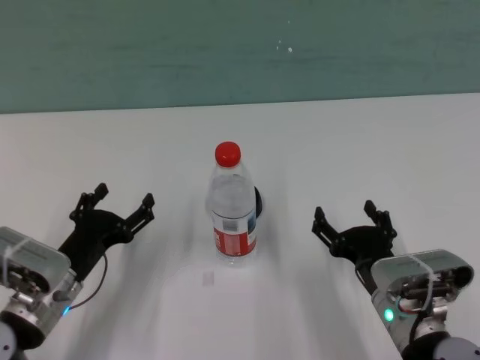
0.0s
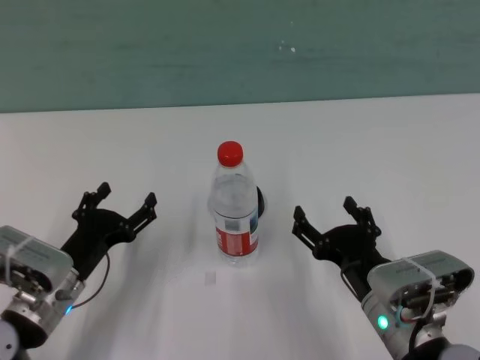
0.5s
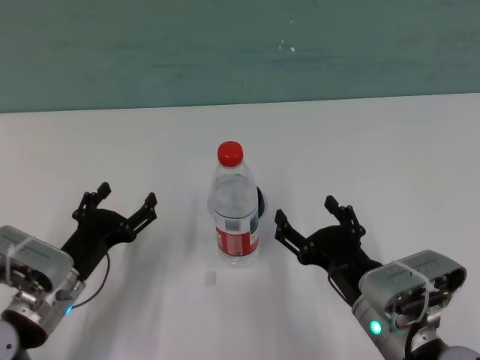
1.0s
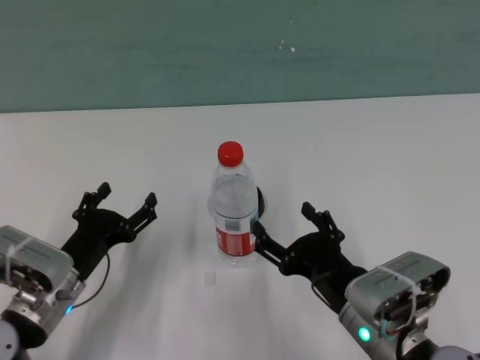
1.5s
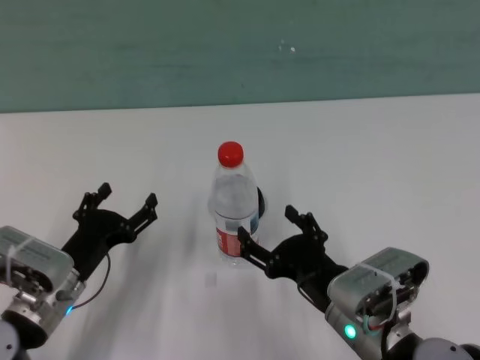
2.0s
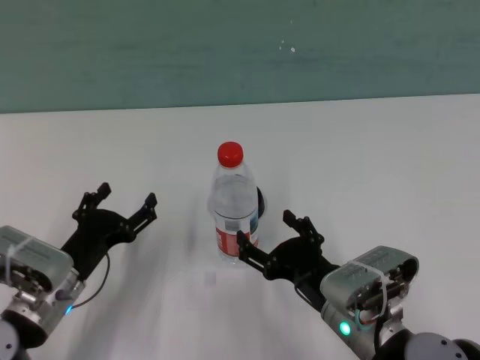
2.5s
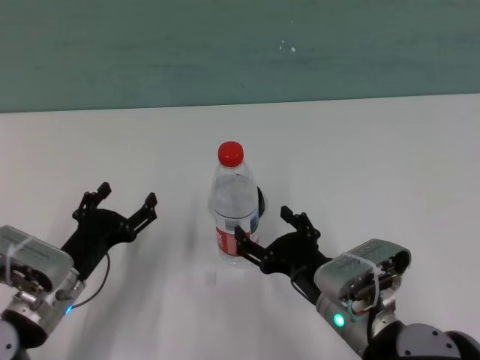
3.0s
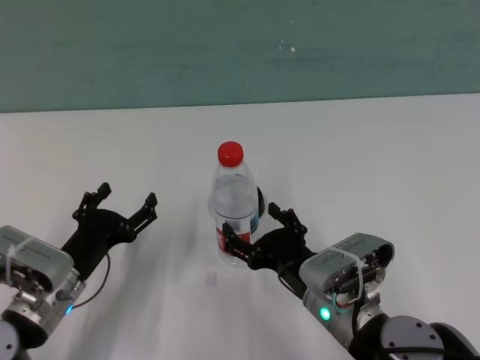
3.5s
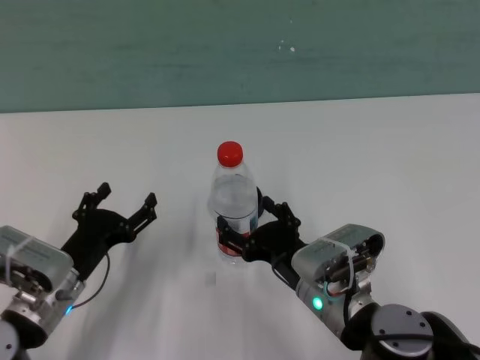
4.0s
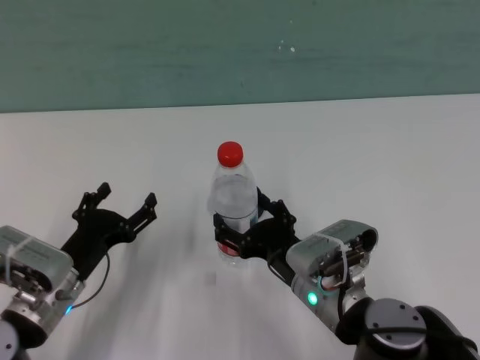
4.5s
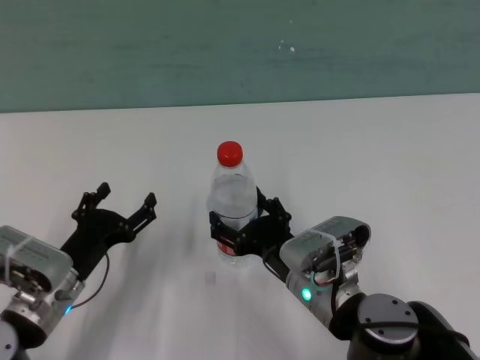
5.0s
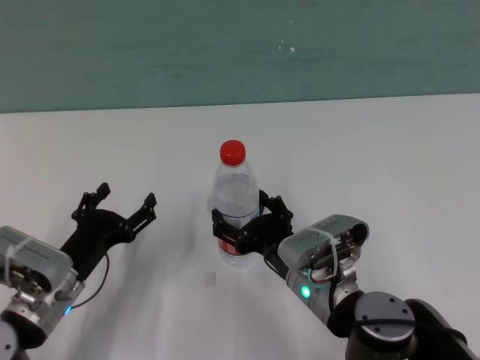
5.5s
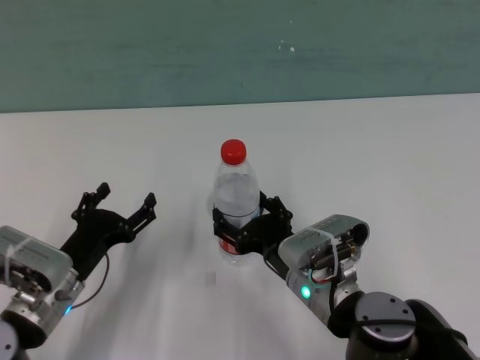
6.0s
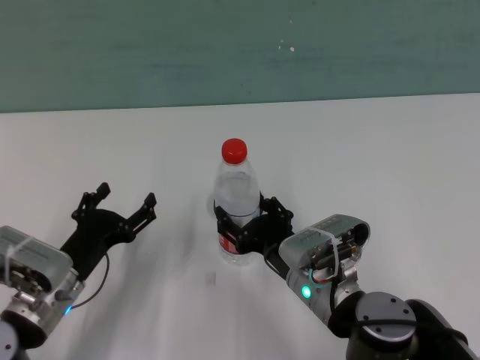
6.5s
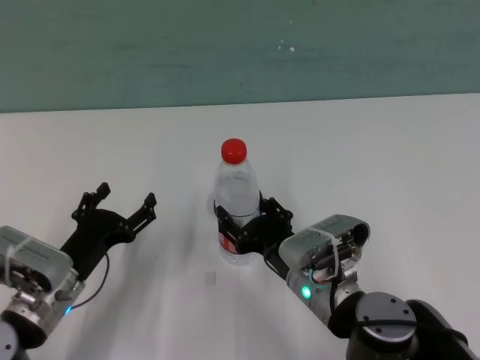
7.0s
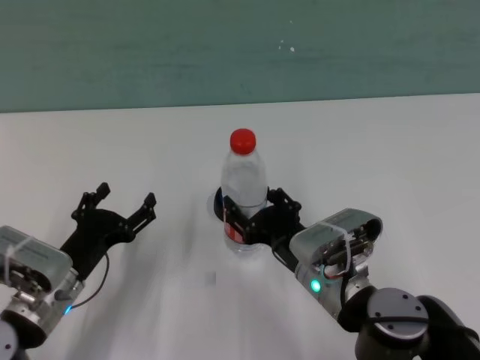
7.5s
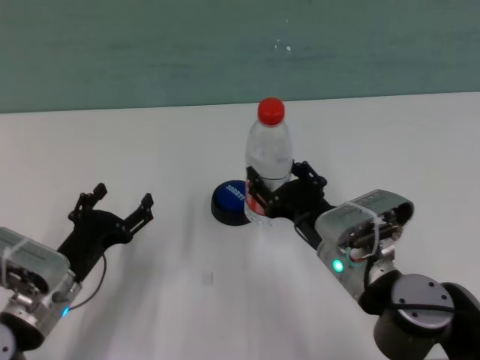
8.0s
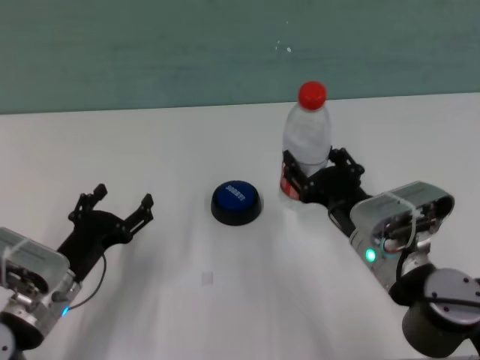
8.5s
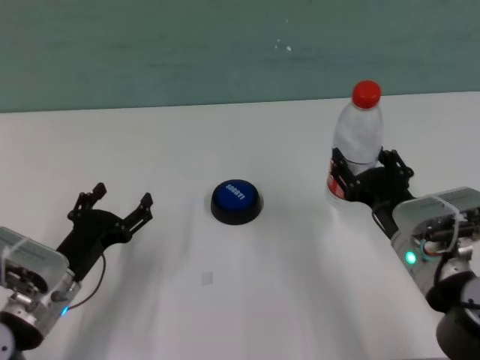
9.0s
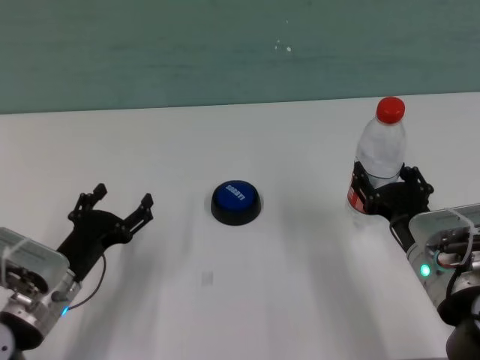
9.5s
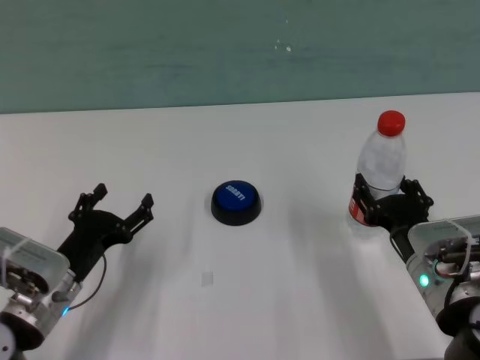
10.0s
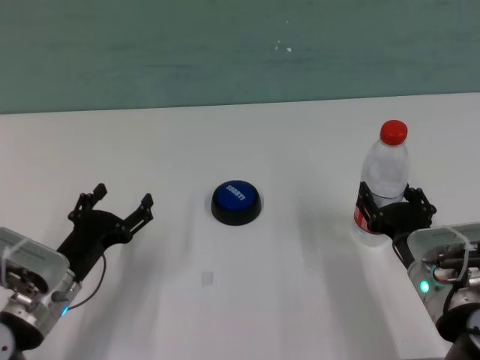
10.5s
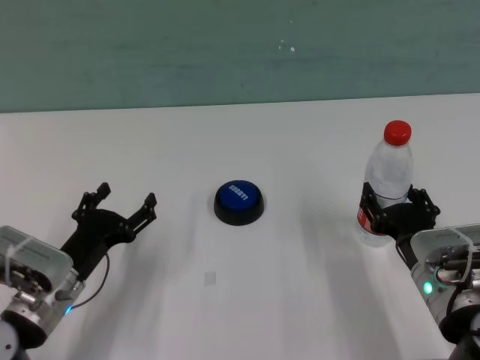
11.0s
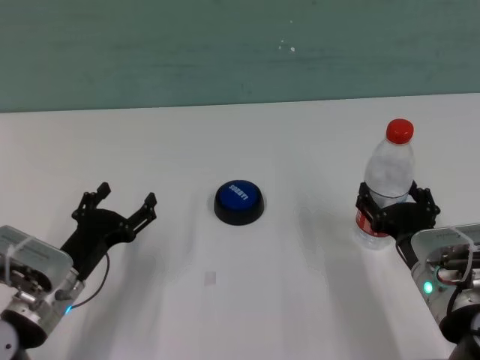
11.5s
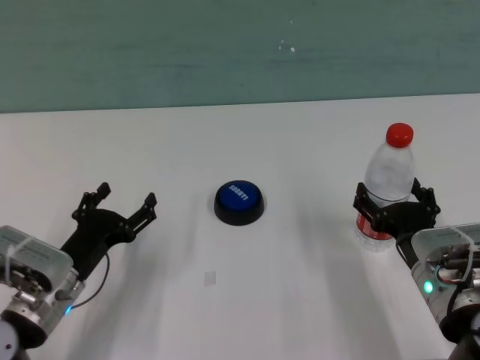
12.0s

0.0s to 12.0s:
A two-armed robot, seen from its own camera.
Task of the whole recording: after removing the water bottle from the table, press the button.
Step, 0.0s to 11.5s: Move the bottle away with right gripper.

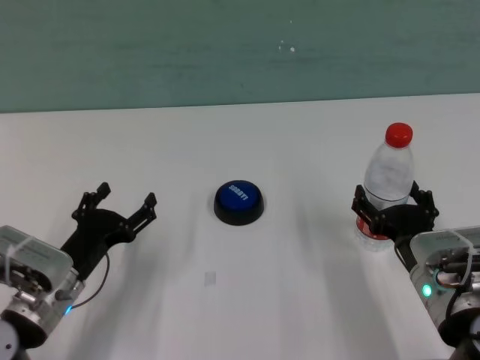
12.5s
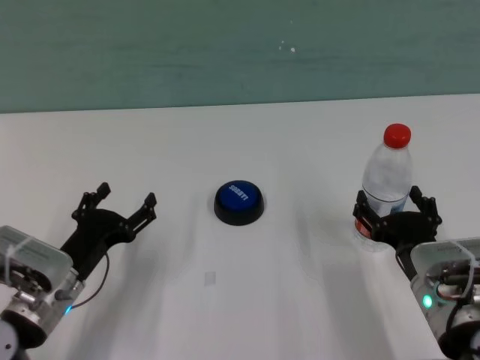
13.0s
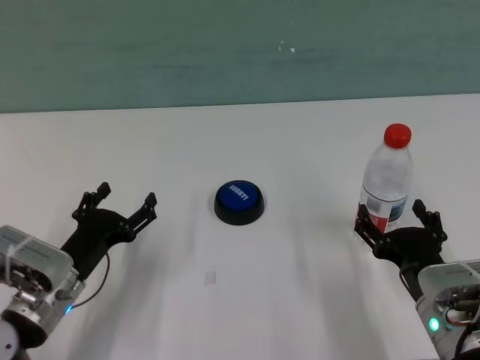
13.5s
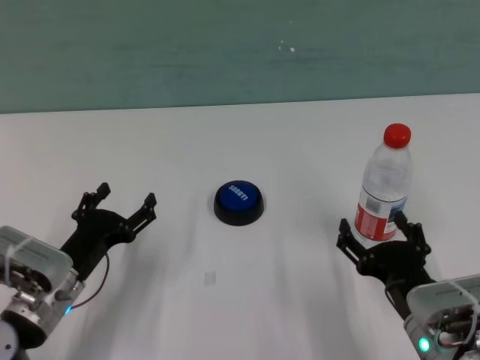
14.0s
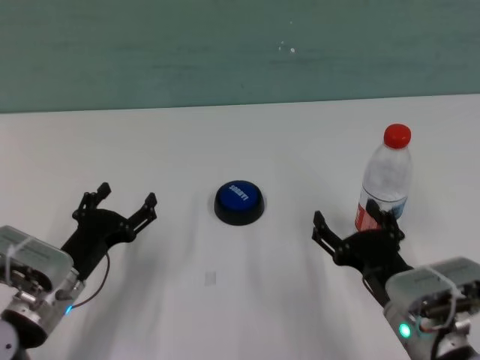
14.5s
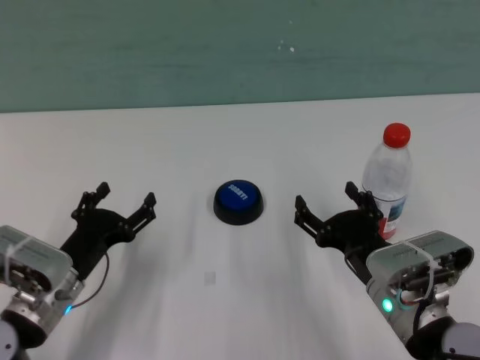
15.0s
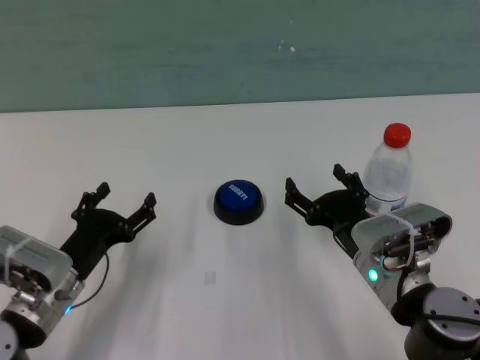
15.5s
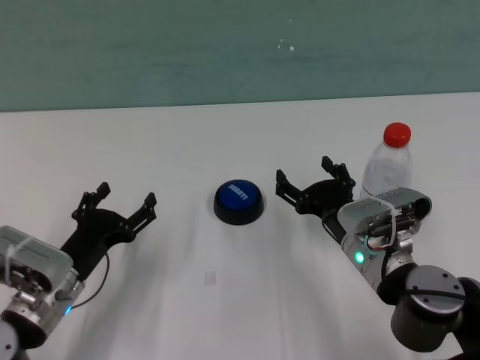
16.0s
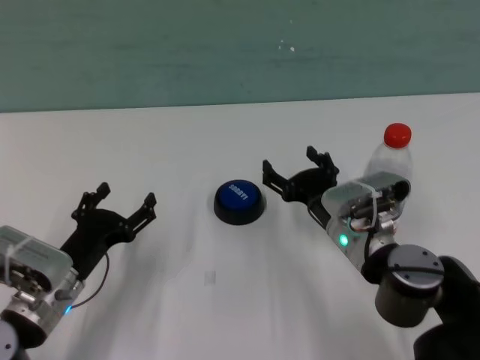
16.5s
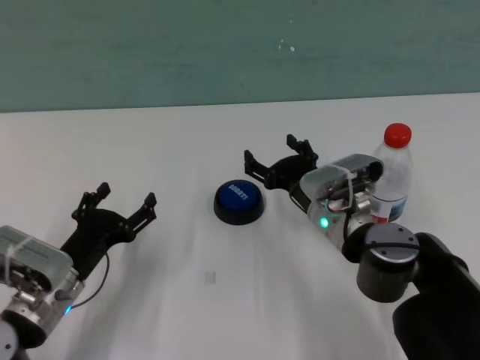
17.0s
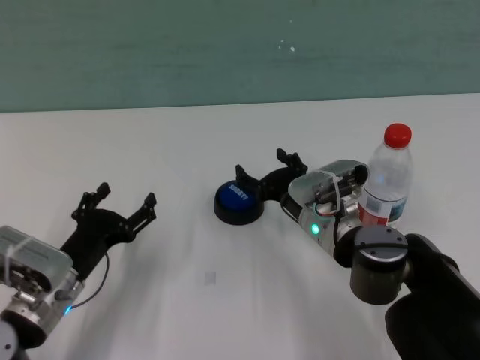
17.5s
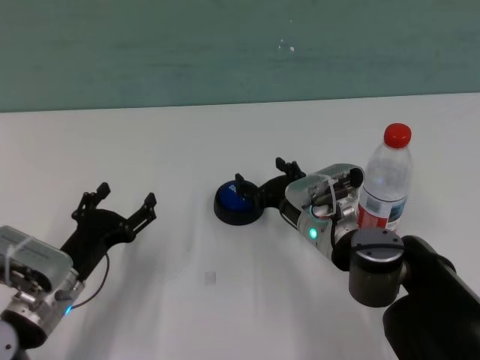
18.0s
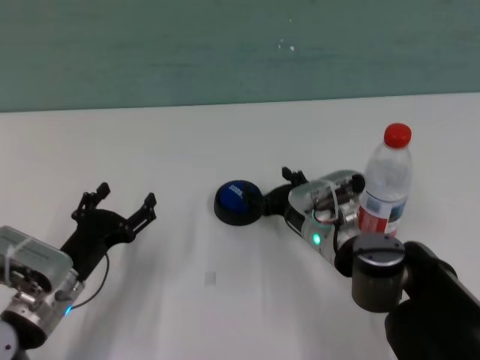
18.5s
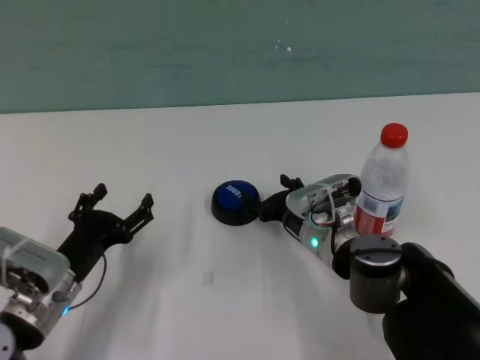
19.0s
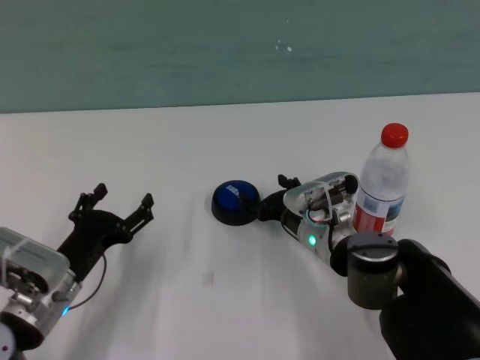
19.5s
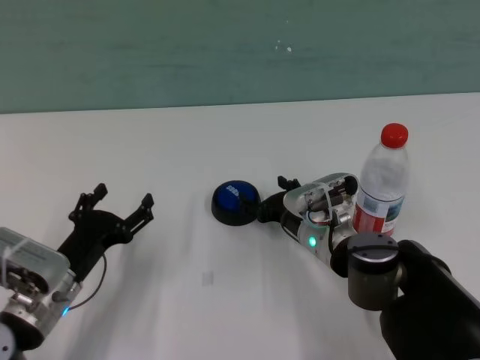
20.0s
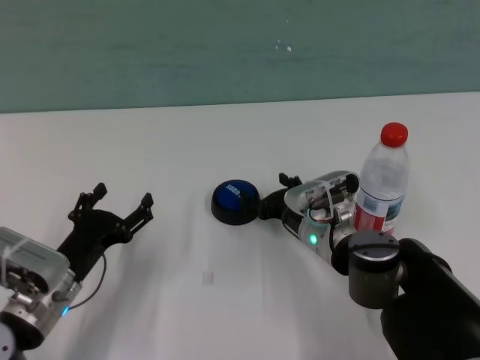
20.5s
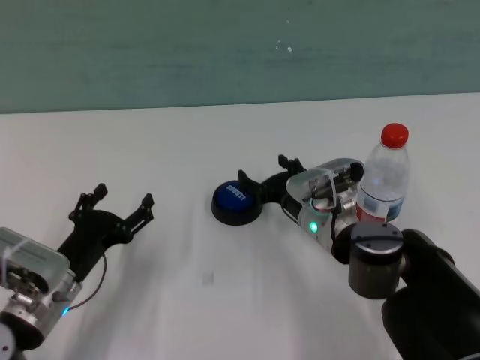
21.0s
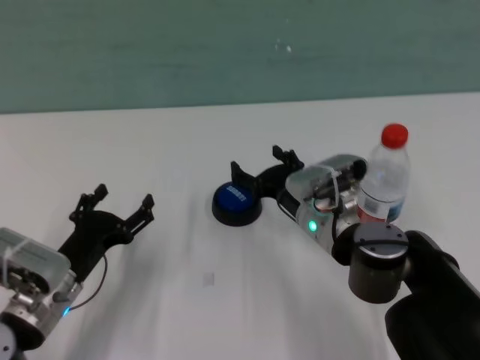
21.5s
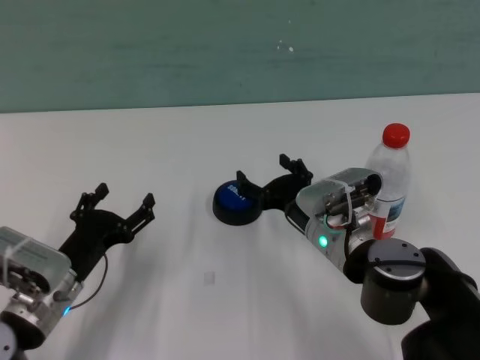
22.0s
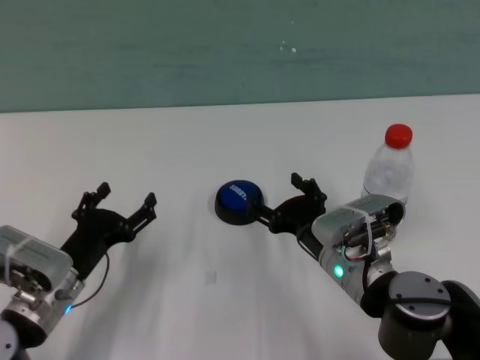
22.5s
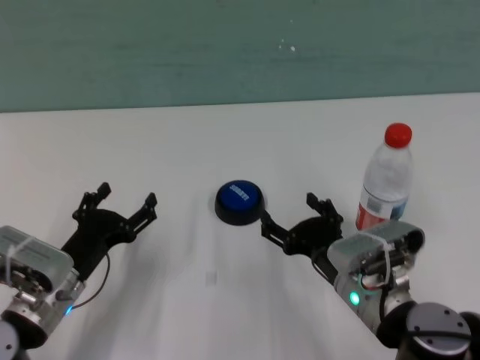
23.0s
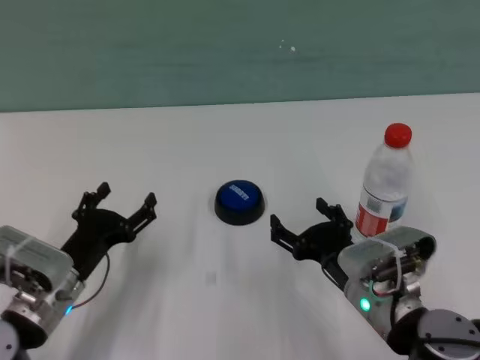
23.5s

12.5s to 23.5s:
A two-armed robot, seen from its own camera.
Task of the whole recording: after removing the water bottle from the table, press the button.
Step, 12.5s to 21.0s: Press the button with right gripper.
